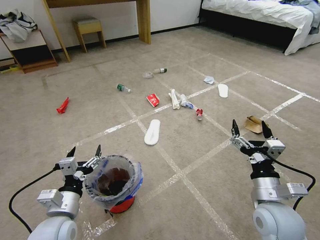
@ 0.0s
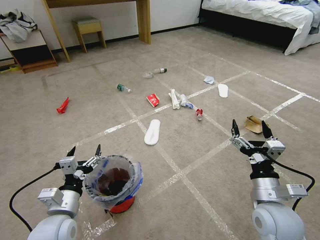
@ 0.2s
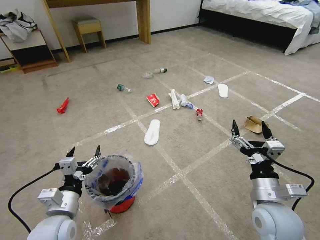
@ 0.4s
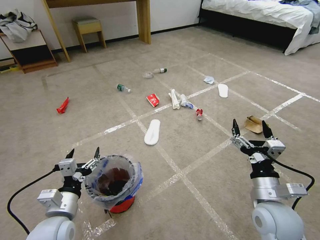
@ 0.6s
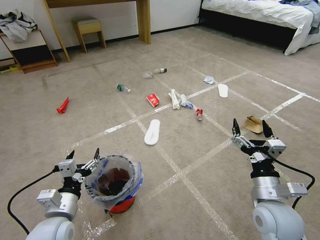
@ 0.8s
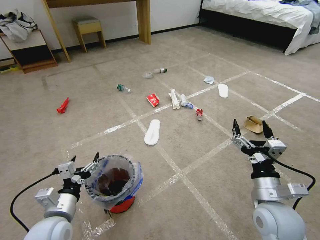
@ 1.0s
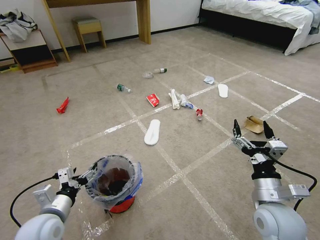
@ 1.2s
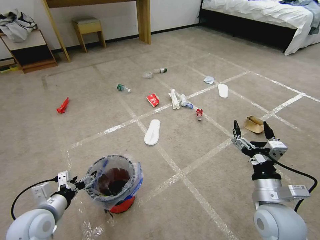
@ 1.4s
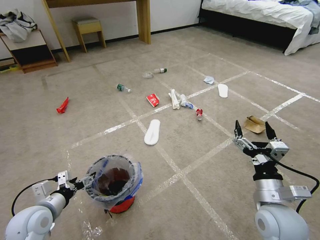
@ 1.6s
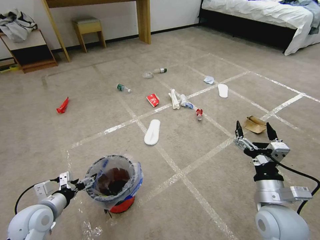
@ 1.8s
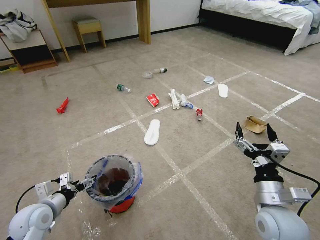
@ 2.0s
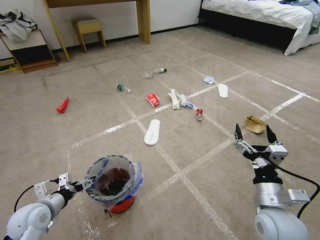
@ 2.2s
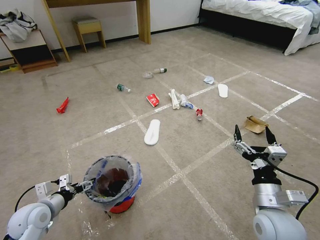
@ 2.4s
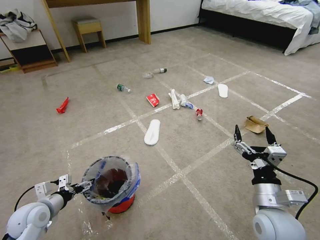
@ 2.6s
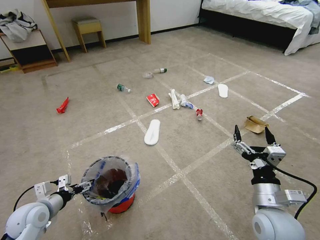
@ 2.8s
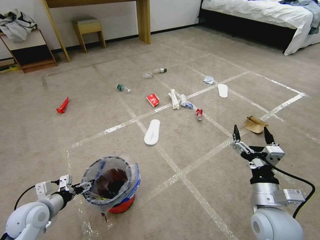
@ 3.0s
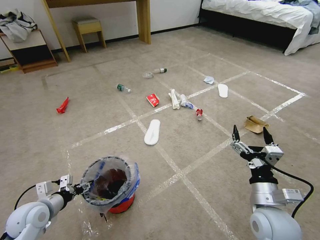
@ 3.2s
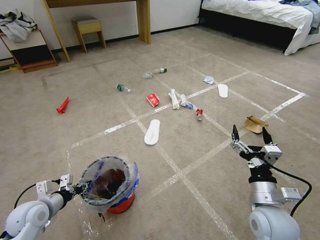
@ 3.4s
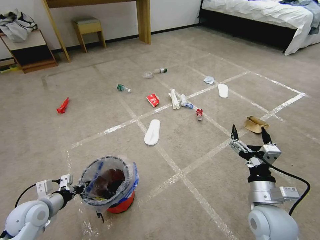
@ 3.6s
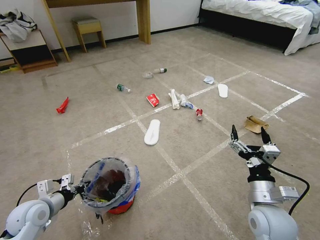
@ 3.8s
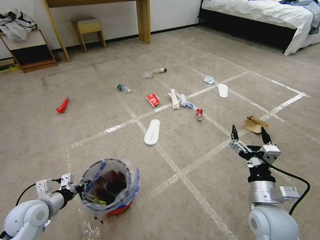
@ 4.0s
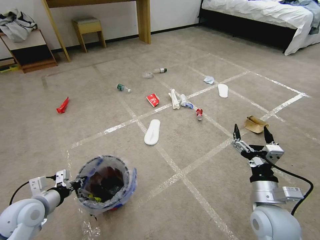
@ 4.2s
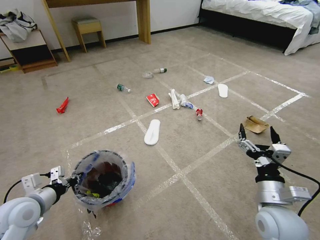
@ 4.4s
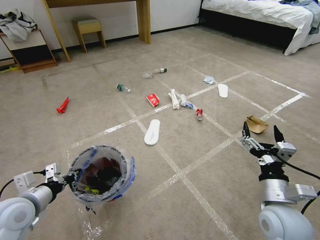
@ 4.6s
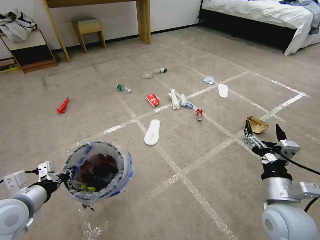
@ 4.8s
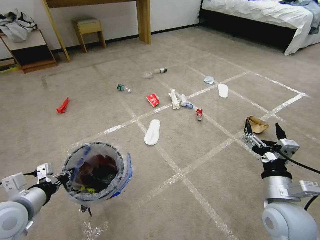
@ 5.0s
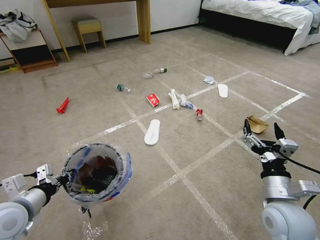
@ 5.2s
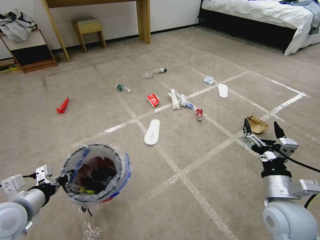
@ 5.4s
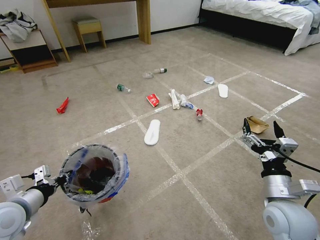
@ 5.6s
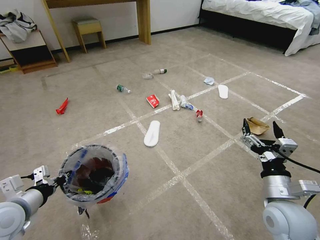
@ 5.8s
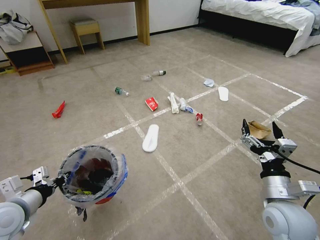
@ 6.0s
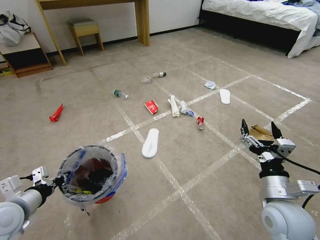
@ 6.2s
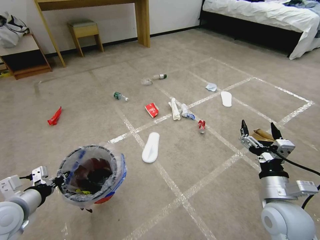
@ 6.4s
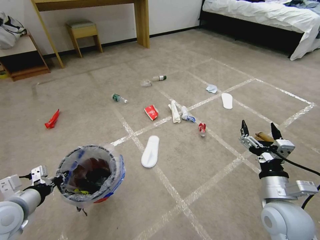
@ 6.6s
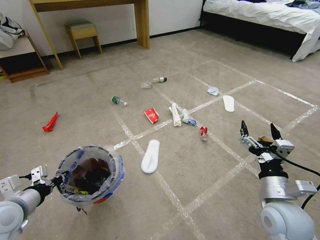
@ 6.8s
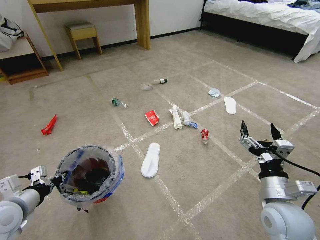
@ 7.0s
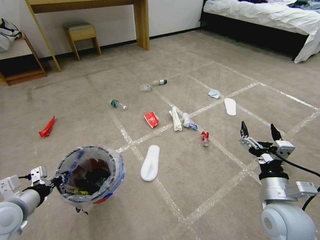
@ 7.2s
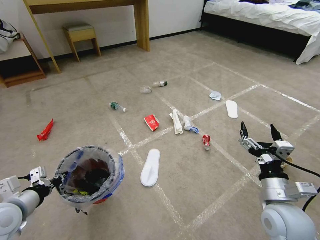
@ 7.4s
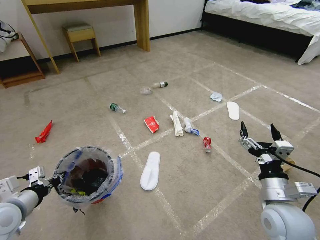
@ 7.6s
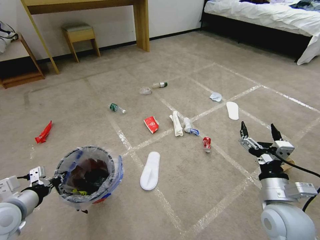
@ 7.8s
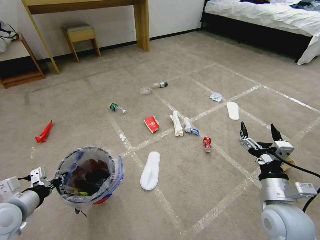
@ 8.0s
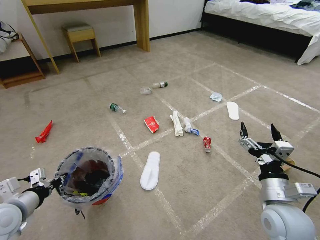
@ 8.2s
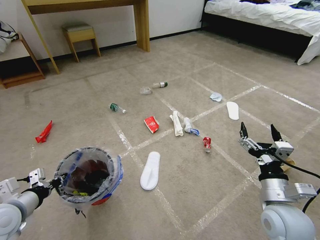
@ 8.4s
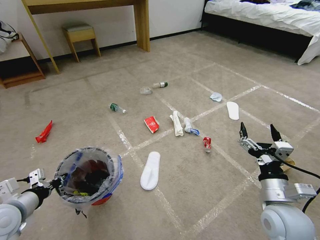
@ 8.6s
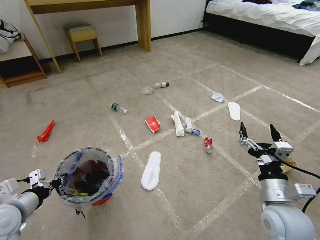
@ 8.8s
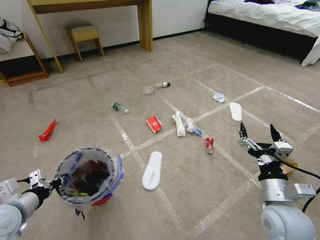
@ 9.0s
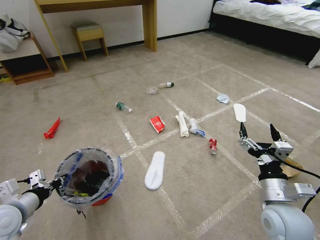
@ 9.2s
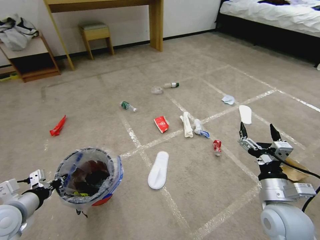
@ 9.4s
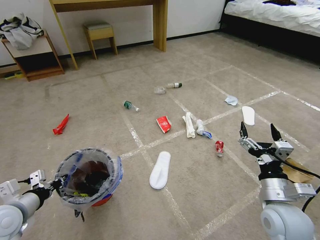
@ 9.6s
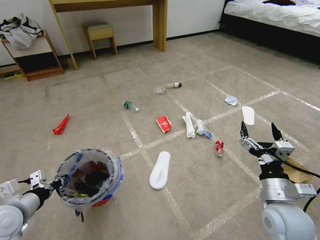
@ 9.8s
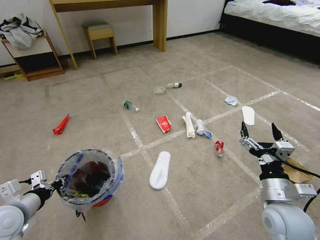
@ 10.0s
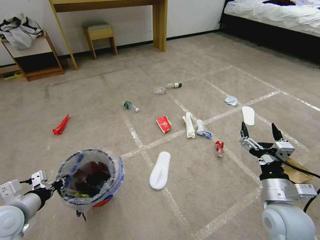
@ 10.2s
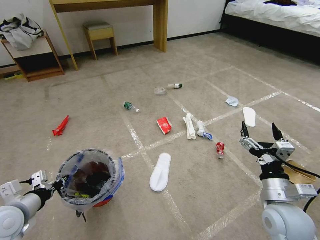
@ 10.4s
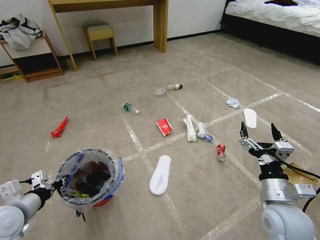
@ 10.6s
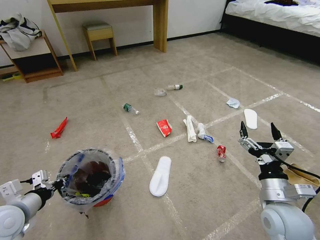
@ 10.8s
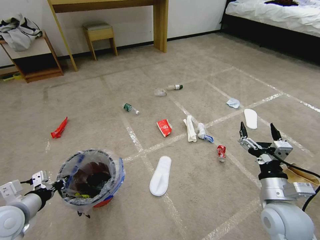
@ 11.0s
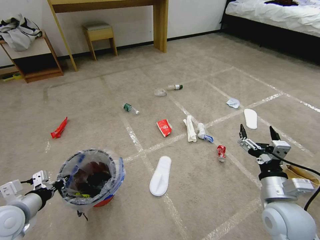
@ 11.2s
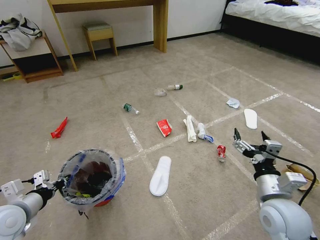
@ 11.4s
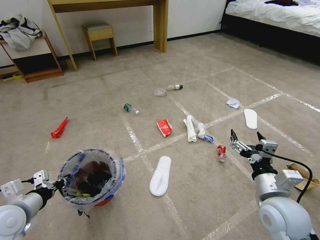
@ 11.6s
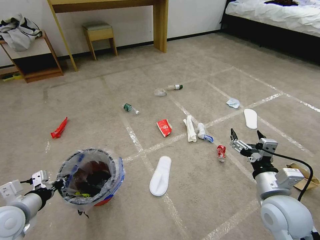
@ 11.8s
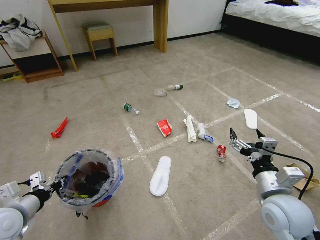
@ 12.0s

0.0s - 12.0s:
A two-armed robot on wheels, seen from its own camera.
Task of the whole recording: Pick up the trash bin and place the garbage on the floor into it.
1.6s - 3.0s: The grippers make only small movements.
3.0s - 4.4s: The left gripper goes roughly 5 cm upward, and closes its fingers.
7.6s - 9.0s: The two grippers keep their place.
10.4s - 12.0s: There are only small adjustments of the grippers.

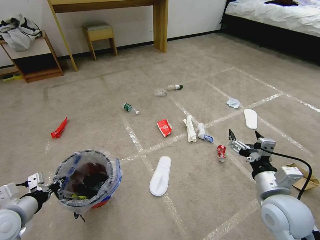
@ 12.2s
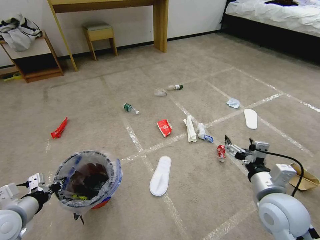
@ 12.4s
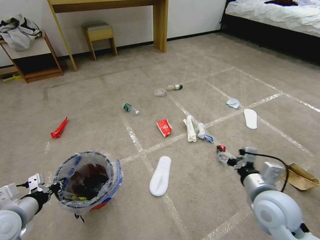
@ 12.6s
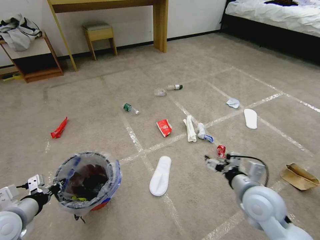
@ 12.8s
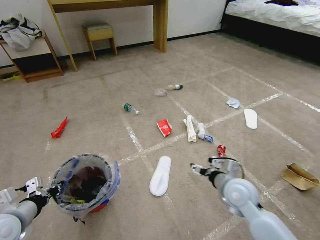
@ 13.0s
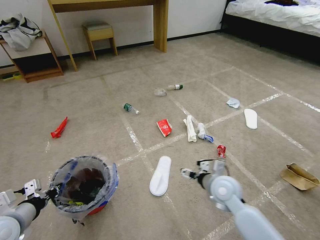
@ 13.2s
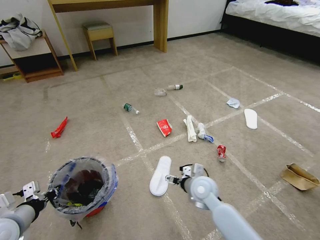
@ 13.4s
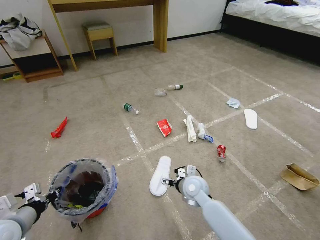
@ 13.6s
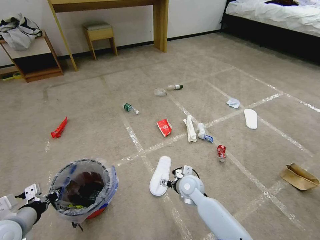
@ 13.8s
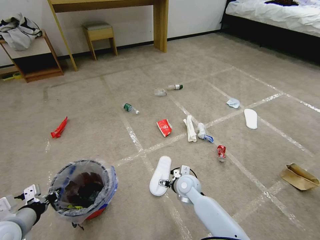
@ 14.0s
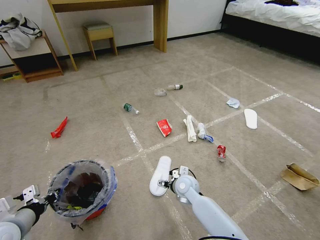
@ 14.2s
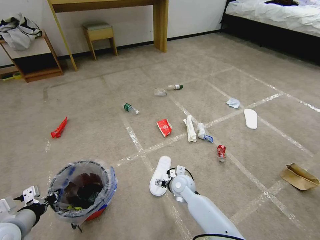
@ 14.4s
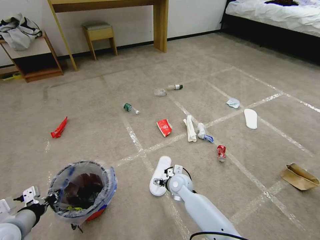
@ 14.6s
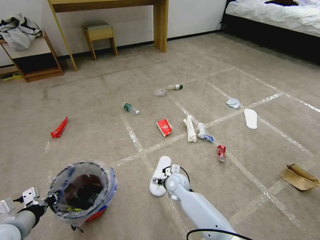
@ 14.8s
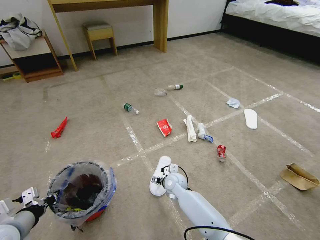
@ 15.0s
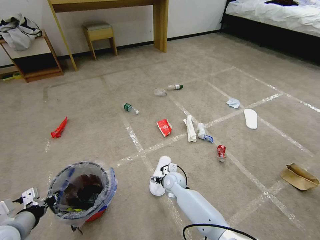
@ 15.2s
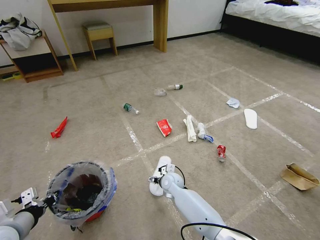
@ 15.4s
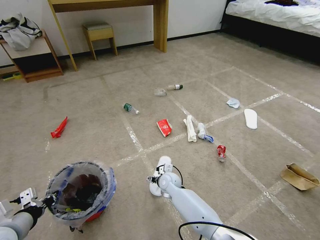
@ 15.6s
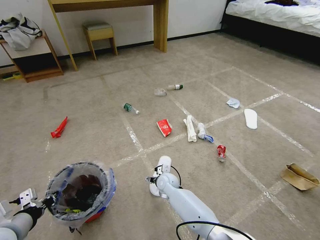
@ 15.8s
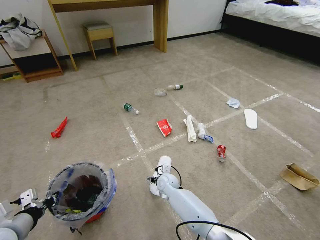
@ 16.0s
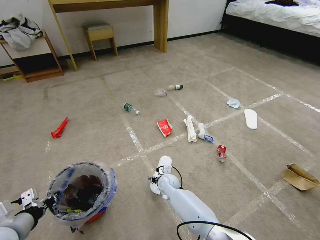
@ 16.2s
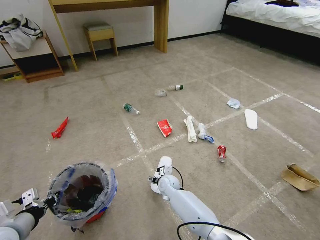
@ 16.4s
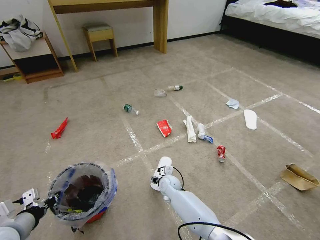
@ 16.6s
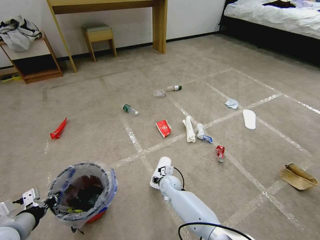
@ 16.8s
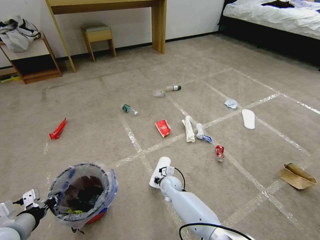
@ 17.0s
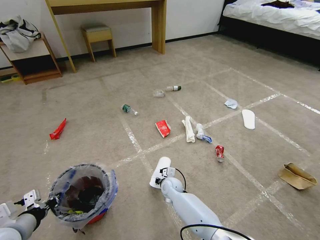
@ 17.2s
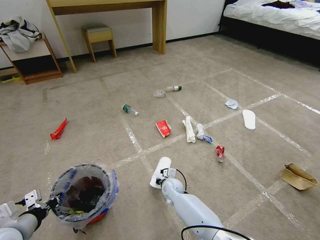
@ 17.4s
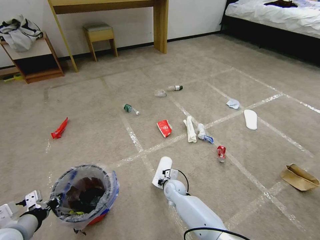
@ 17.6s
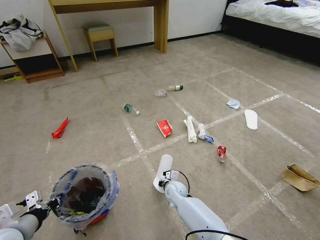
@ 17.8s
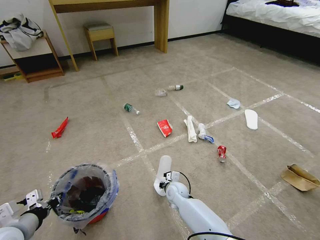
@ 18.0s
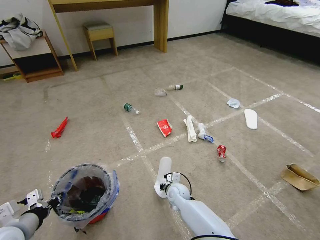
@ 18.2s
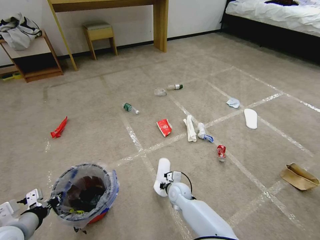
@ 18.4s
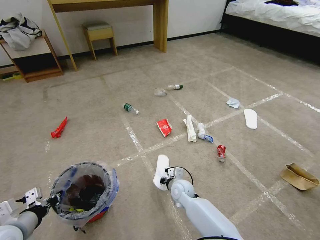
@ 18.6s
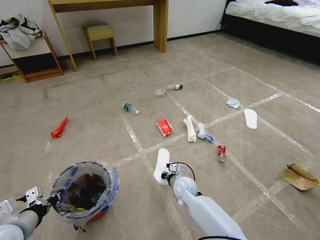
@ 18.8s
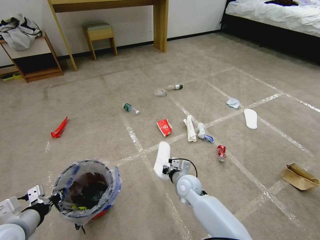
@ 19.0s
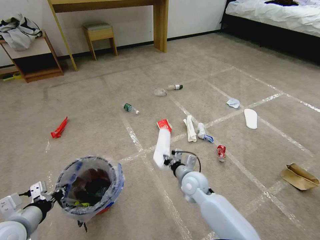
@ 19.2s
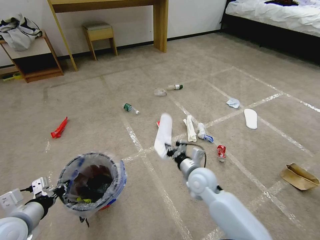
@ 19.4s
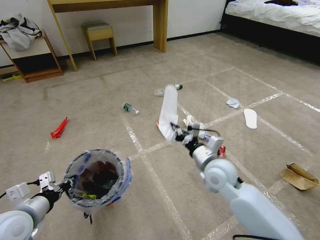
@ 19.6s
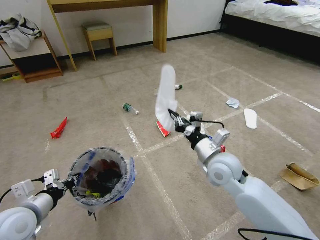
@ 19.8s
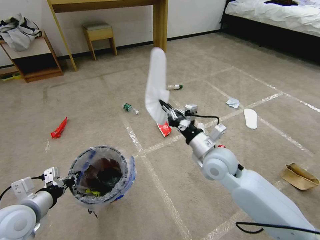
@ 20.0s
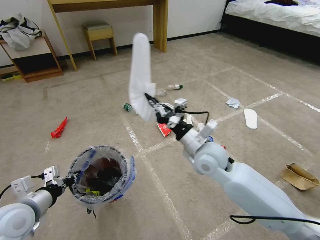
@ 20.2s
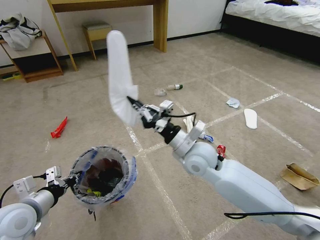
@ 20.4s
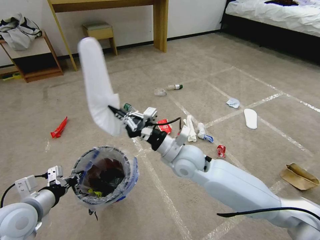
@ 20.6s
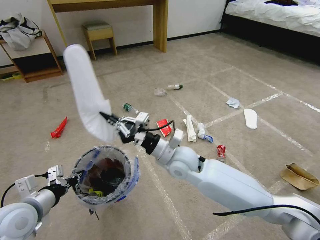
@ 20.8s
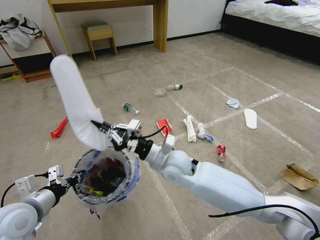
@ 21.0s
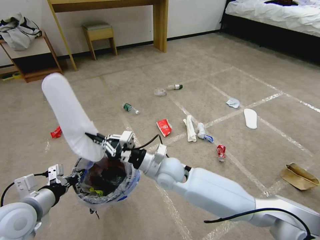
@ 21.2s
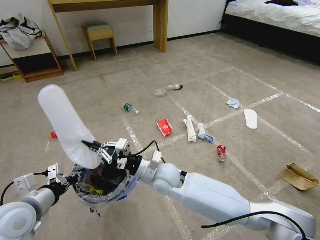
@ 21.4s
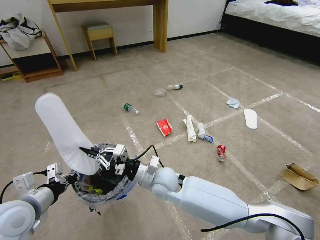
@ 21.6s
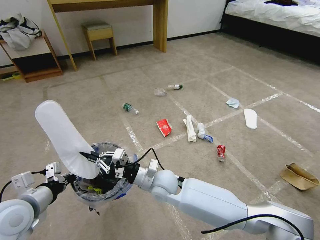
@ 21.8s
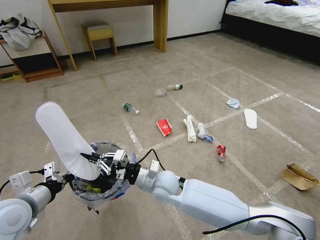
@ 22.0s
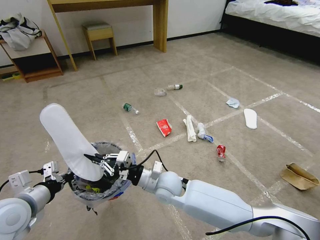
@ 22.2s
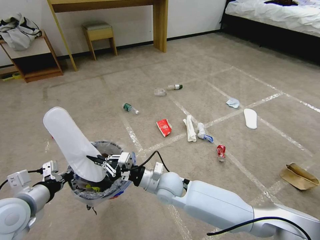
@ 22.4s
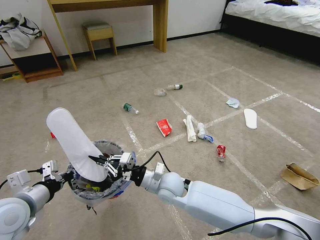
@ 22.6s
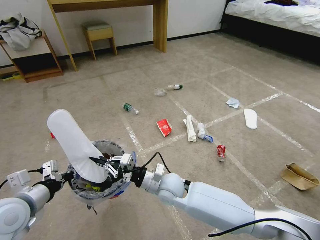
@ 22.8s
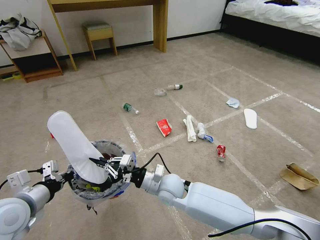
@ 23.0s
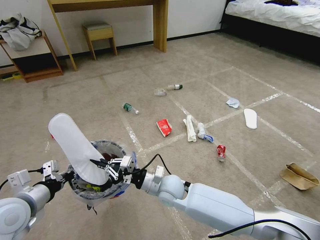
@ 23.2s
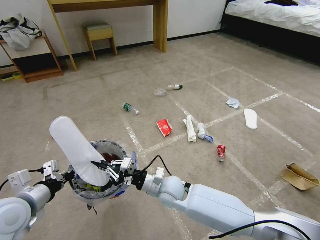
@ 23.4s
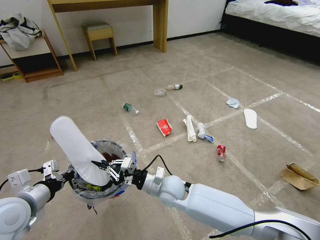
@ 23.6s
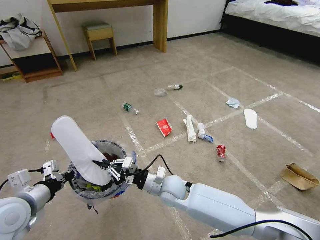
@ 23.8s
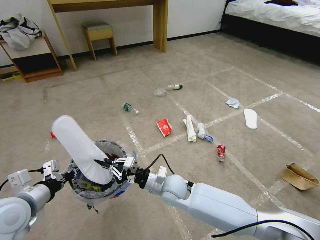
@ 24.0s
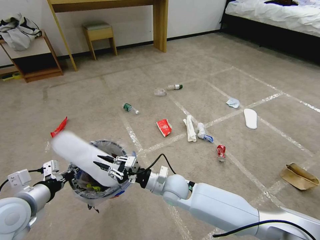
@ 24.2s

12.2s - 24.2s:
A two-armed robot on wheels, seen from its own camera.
Task of the whole recording: Pick up the trash bin and place the garbage on the floor into it.
12.2s - 13.8s: The right gripper travels to the left, downward and forward by approximately 30 cm.
13.8s - 15.2s: The right gripper is displaced to the left and downward by some 10 cm.
15.2s - 16.6s: The grippers stay close to where they were, moving slightly.
16.6s - 18.2s: The right gripper changes place by some 5 cm, and closes.
18.2s - 19.8s: The left gripper moves approximately 5 cm. Meanwhile the right gripper shifts roughly 30 cm upward and to the right.
19.8s - 21.2s: The right gripper goes approximately 15 cm to the left.
21.2s - 22.6s: The right gripper travels downward by about 5 cm.
22.6s - 24.2s: The grippers stay close to where they were, moving slightly.
